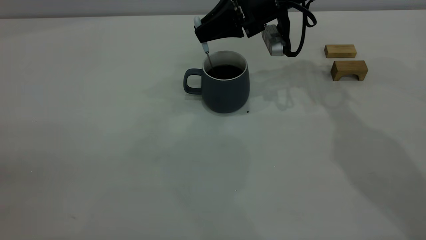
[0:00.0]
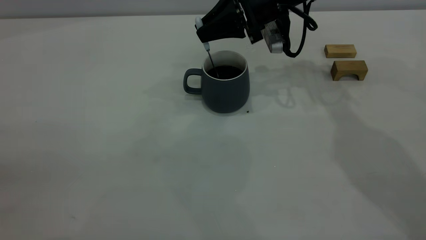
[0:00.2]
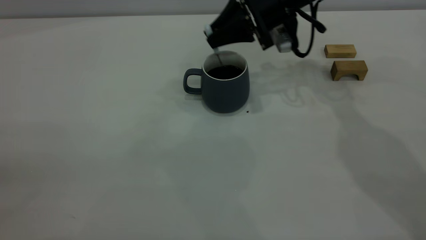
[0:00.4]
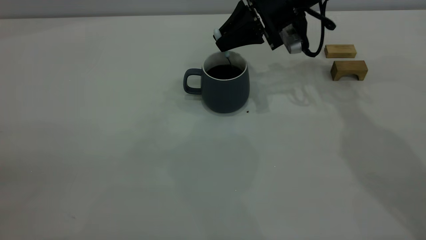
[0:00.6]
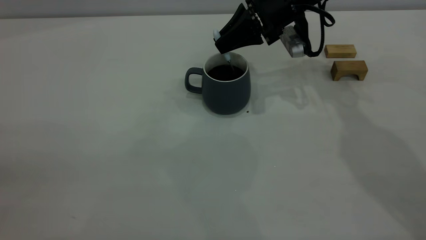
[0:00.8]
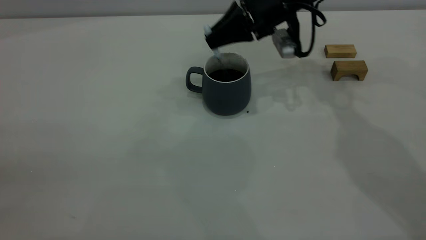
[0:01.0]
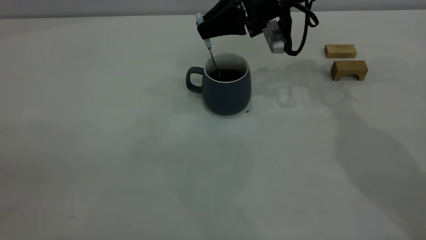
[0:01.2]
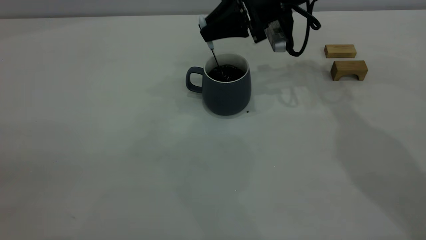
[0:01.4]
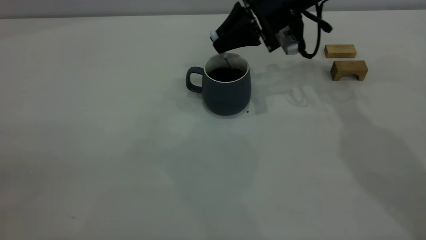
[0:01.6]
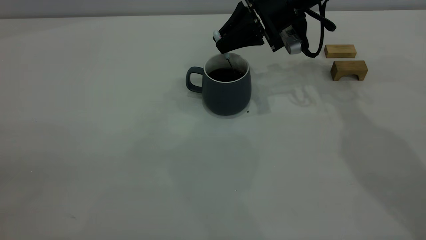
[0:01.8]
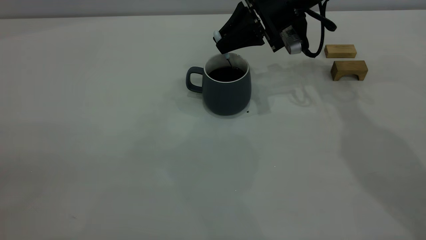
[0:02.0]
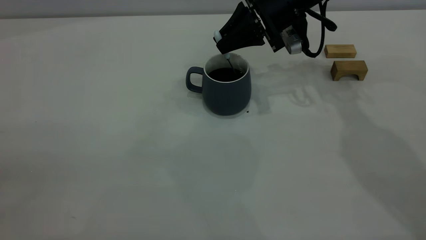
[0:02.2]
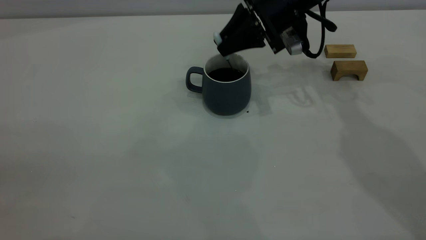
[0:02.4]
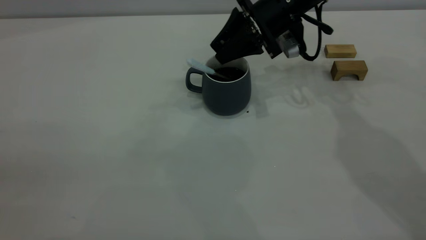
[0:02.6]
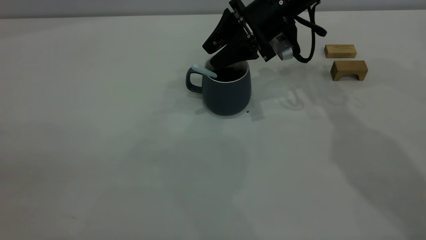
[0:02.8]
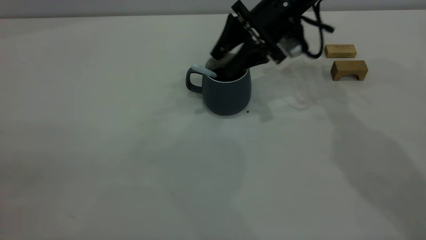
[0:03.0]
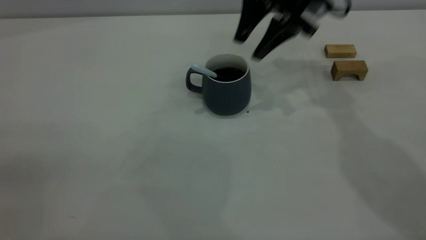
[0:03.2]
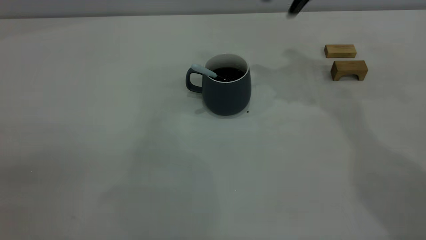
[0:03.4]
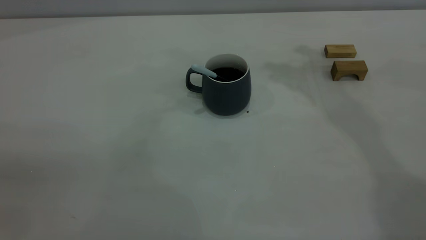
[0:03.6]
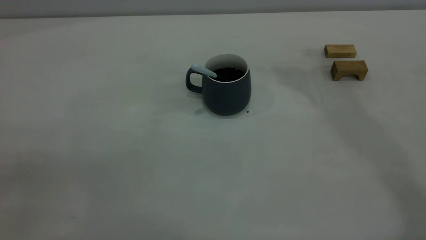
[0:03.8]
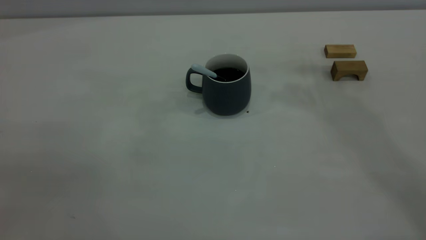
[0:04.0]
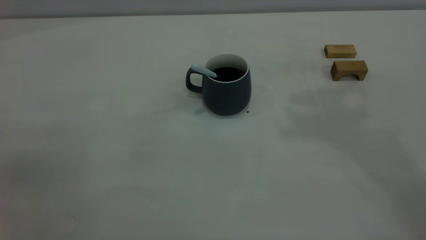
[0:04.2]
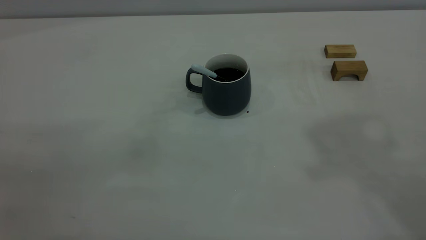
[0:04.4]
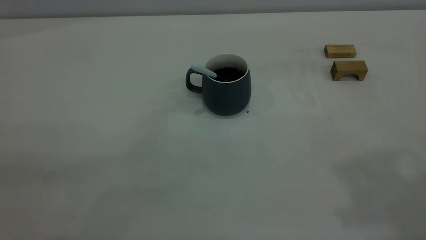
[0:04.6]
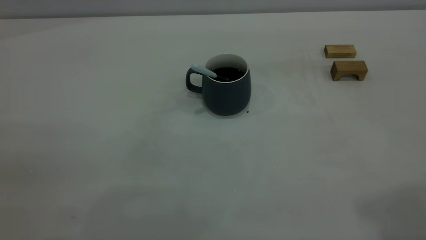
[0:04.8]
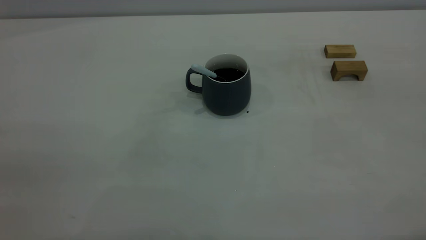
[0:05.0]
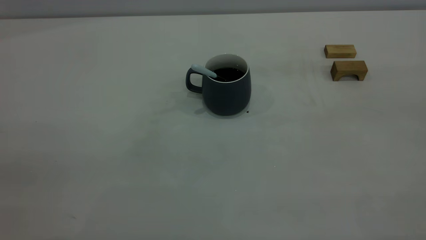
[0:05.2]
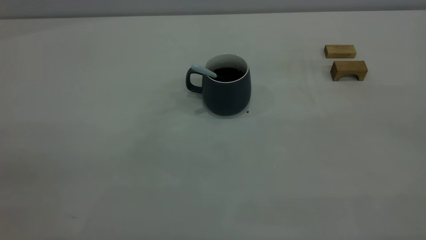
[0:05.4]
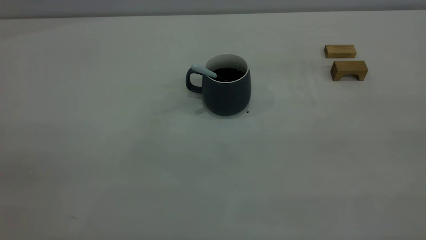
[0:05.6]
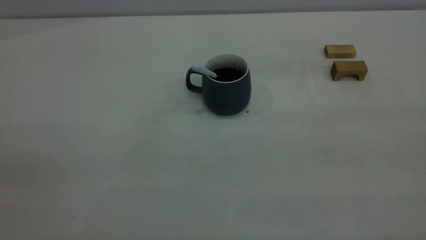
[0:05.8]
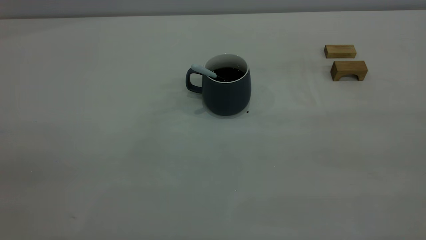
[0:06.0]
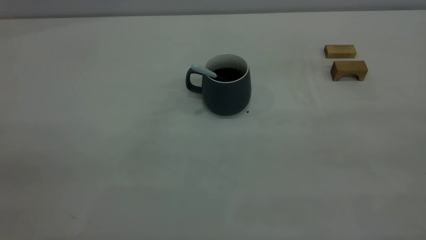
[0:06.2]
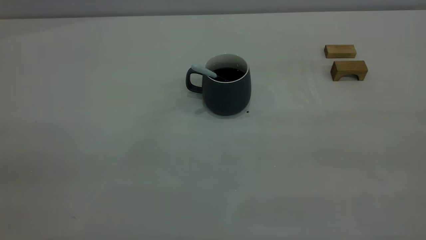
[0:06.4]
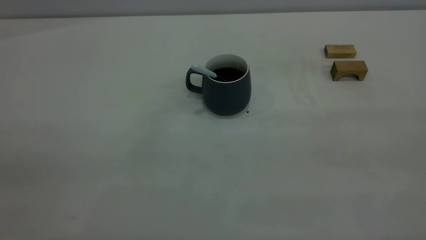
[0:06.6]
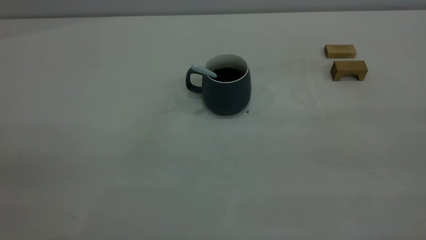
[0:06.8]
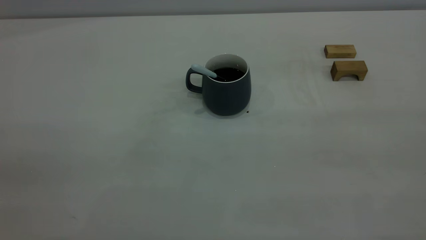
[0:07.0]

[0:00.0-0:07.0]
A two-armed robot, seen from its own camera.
Step, 0:00.0 to 0:03.2: Stir the coffee in the cup.
0:00.0 to 0:01.4: The grippers stay close to where they were, moving slightly.
0:01.4 to 0:02.8: The right gripper opens.
0:02.8 to 0:04.2: The right gripper travels upward and backward by about 40 cm.

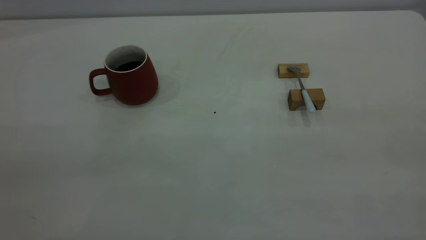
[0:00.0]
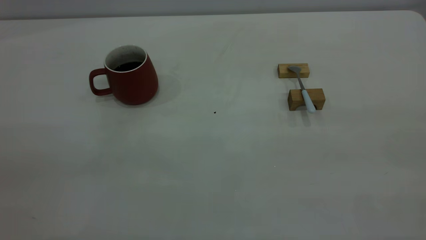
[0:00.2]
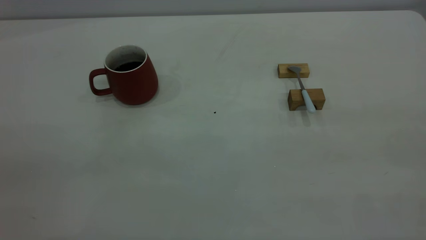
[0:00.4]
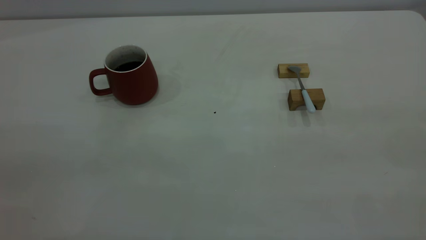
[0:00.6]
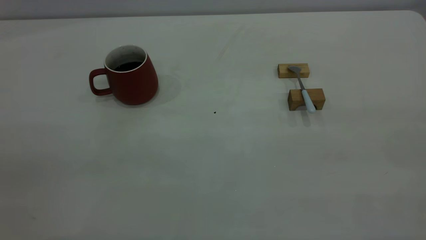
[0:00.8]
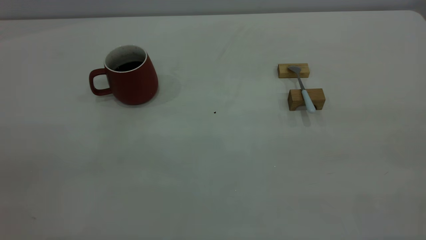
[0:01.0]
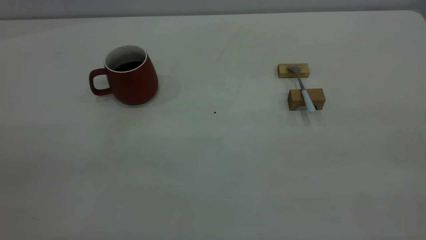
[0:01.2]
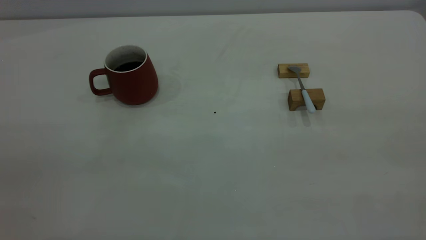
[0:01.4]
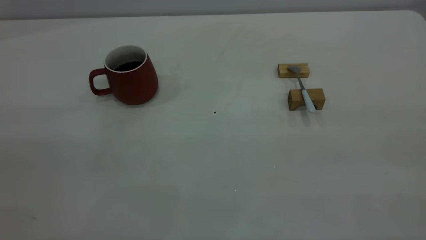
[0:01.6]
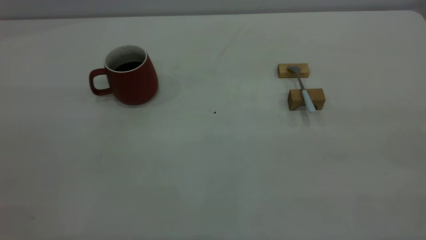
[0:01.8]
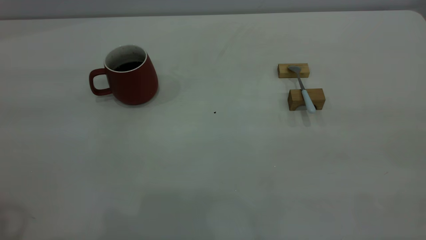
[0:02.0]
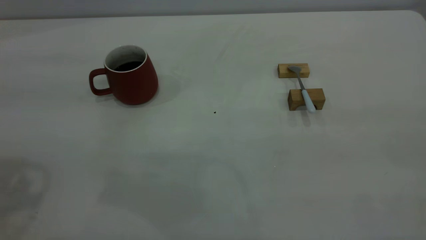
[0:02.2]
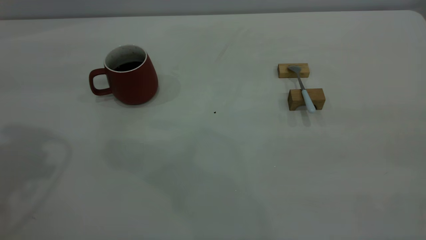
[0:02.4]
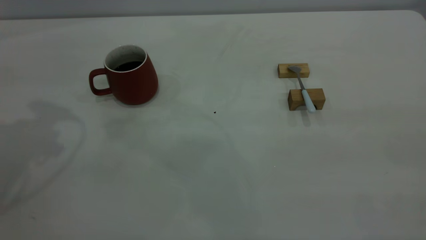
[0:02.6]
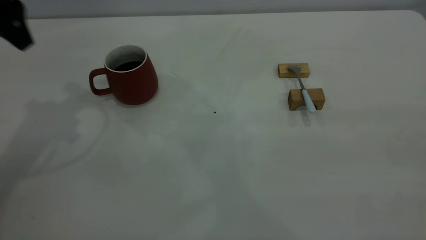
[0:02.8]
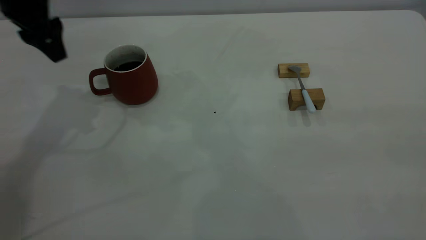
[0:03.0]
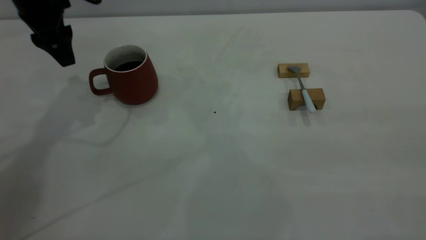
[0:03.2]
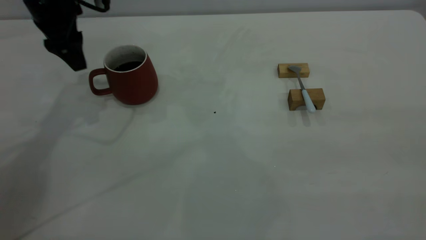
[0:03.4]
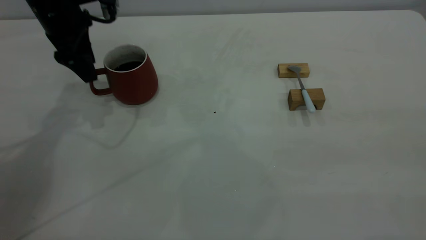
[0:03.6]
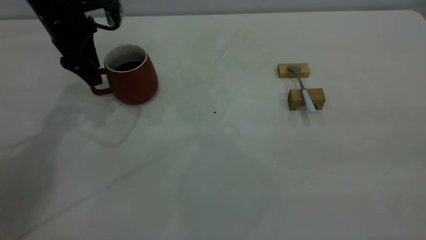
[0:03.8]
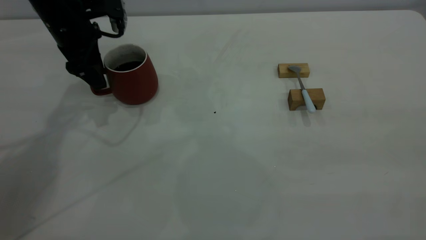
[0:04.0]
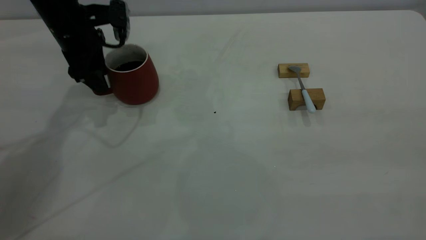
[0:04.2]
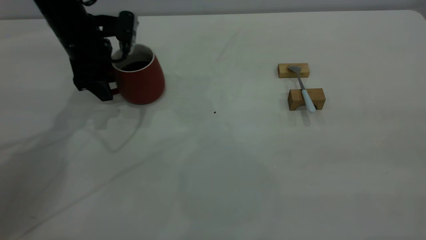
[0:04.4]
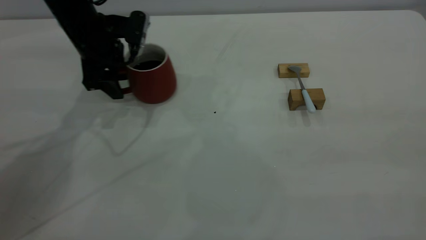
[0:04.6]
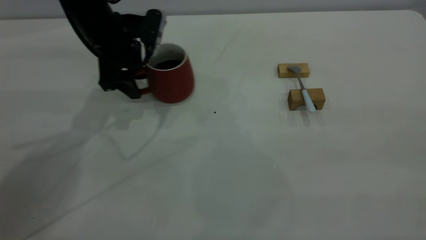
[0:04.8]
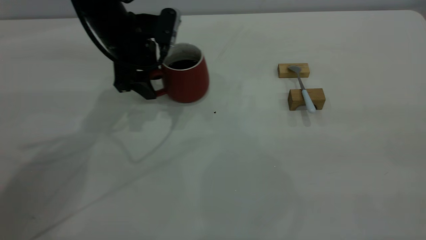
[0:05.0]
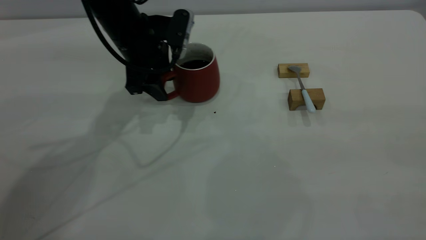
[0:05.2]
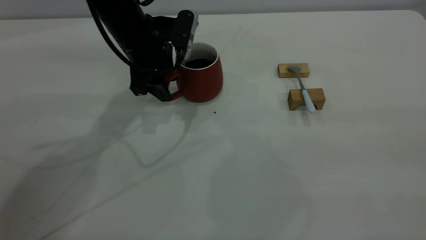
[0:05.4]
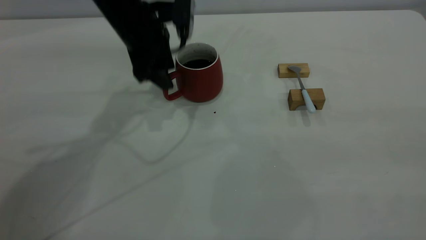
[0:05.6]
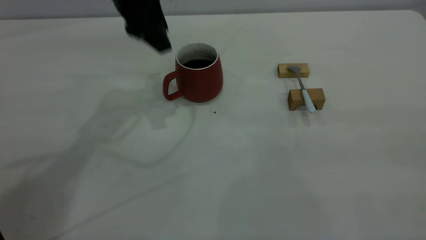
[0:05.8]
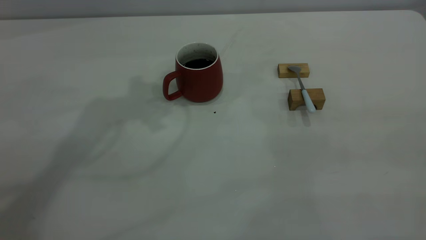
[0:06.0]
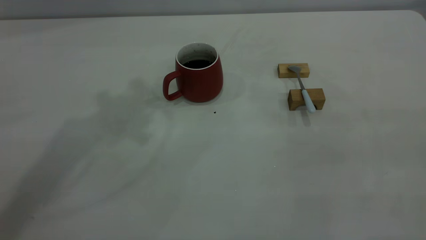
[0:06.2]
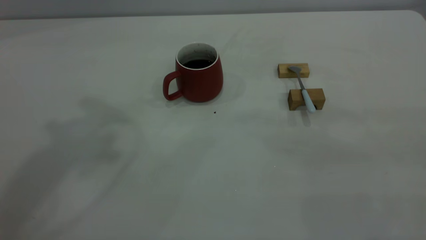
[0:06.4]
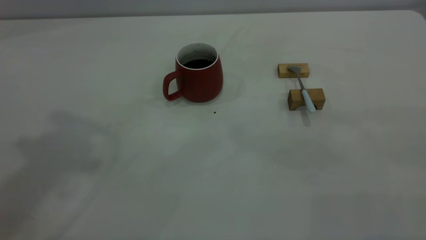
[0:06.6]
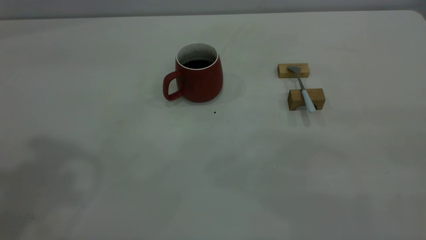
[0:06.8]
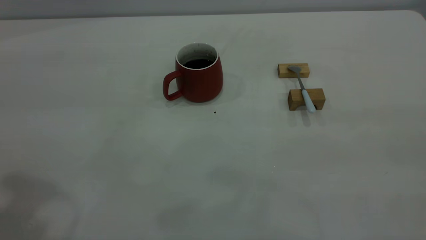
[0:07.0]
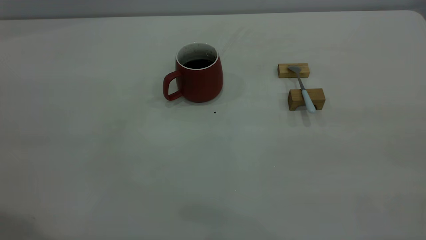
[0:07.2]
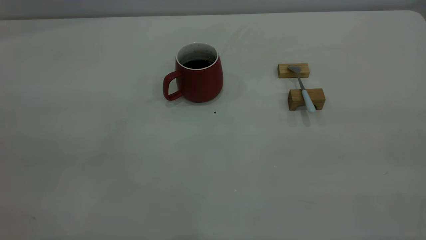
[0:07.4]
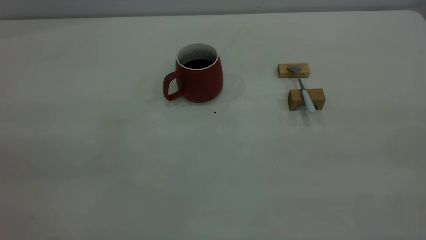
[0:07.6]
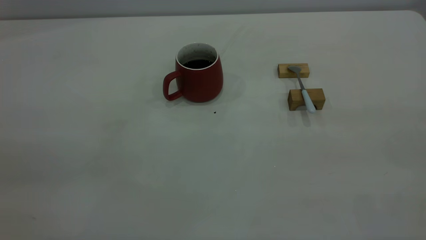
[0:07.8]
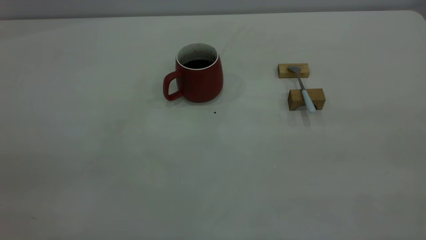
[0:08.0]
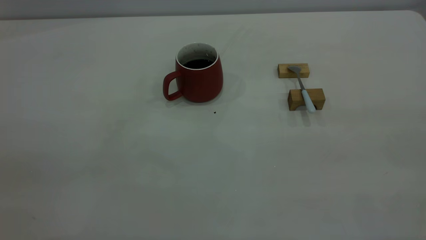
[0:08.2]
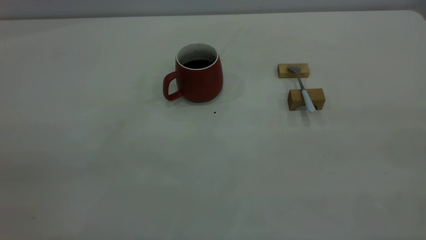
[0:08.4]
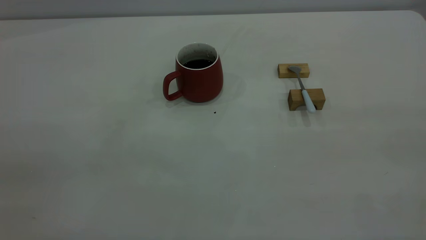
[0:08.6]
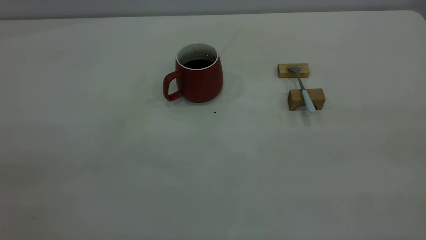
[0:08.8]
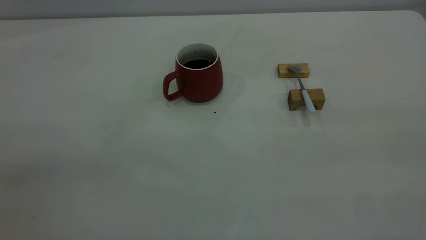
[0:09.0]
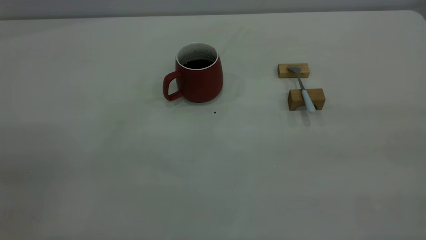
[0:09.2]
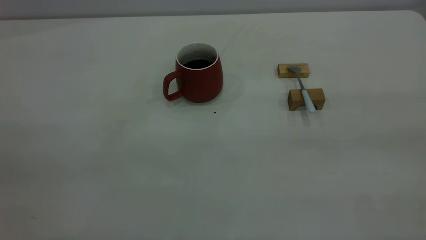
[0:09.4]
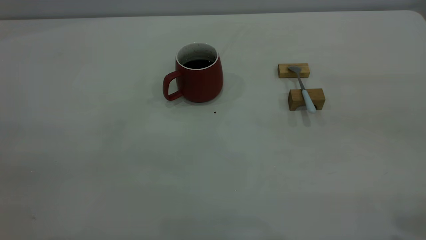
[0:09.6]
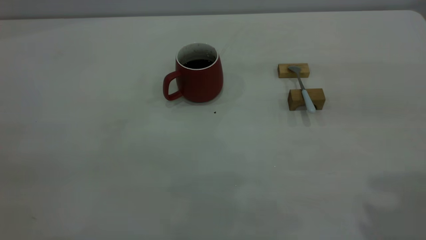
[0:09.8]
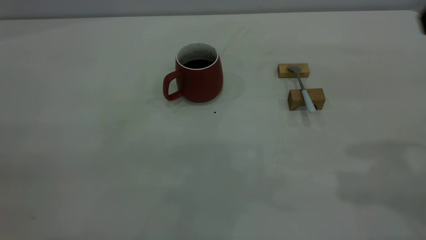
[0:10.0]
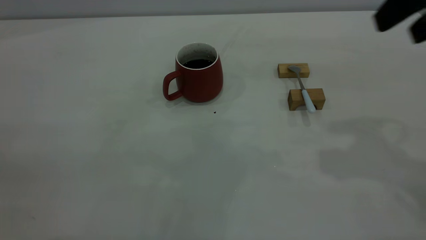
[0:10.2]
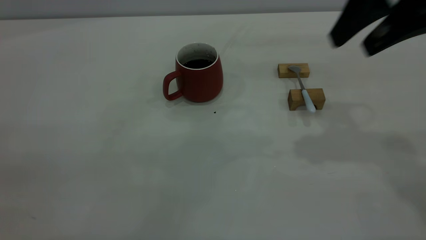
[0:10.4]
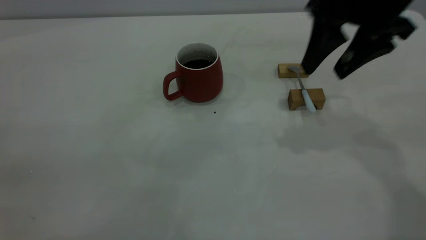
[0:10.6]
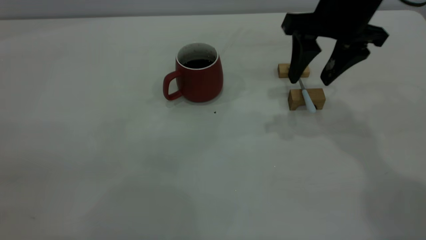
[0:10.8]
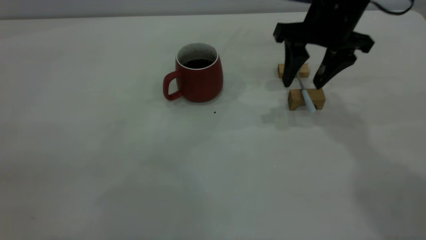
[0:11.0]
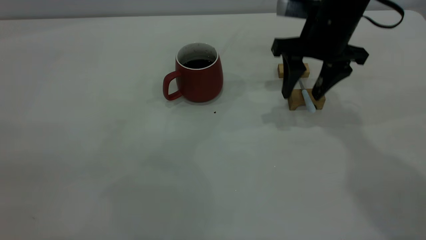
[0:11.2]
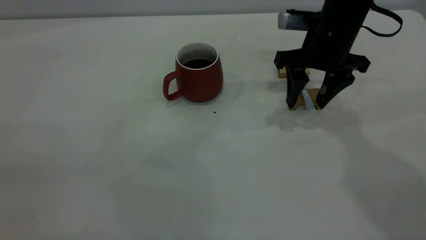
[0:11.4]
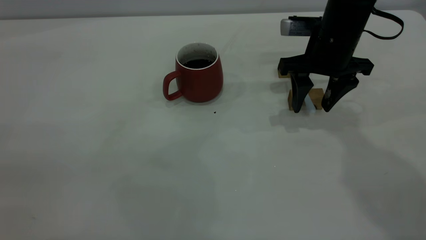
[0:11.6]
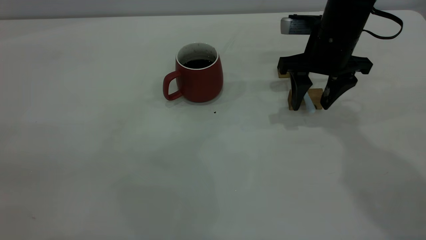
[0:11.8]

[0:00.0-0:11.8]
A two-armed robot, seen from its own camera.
Step, 0:00.0 to 0:05.6: Move the cup with coffee to the center of view.
0:00.0 to 0:01.4: Neither gripper changes place.
0:01.4 to 0:03.0: The left gripper heads forward, covering some 40 cm.
0:03.0 to 0:04.4: The left gripper moves downward, some 10 cm.
0:04.4 to 0:06.0: The left gripper heads upward, covering approximately 25 cm.
0:08.8 to 0:10.4: The right gripper goes about 30 cm forward.
0:10.4 to 0:11.8: The right gripper shifts approximately 15 cm downward and forward.
